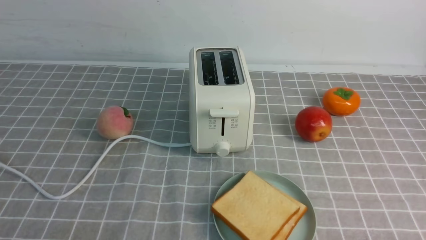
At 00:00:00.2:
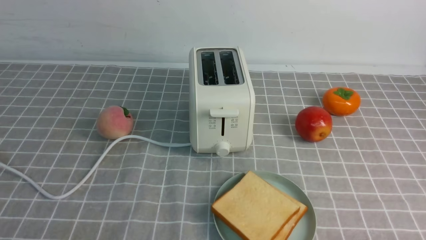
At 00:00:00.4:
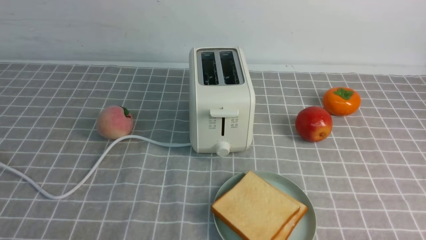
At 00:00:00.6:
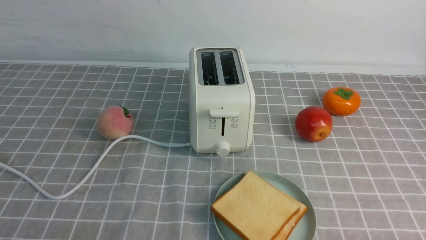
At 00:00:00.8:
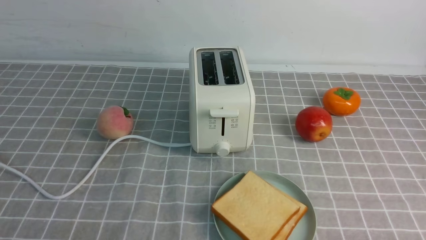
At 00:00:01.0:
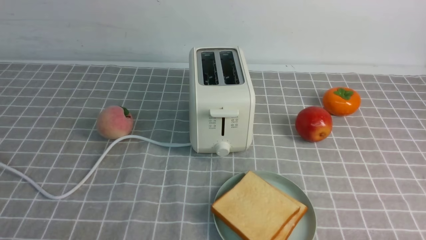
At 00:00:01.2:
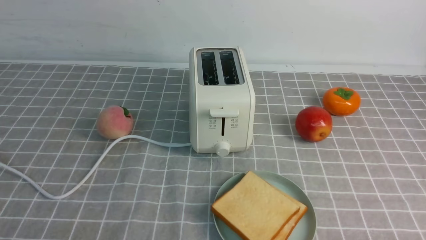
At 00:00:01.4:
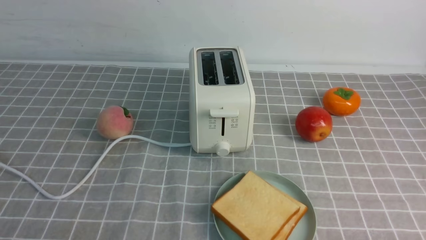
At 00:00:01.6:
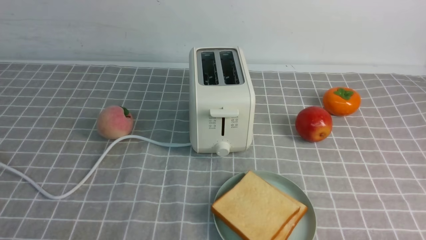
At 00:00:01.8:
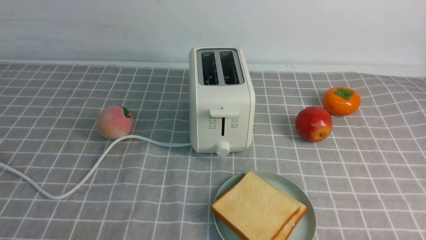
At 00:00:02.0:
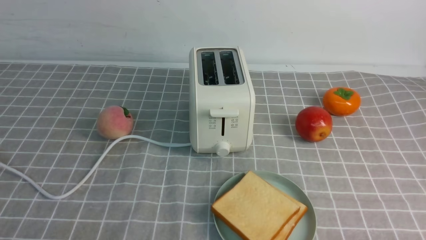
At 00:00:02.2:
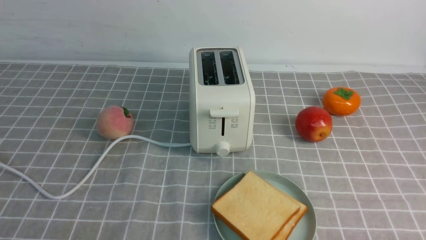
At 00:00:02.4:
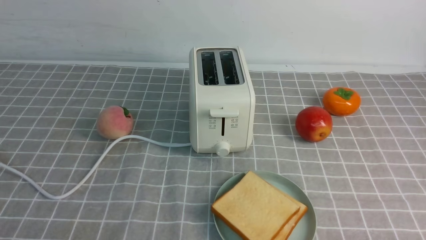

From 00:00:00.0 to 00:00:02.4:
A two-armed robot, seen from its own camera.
Task of the whole recording: take toasted bread from bread machine on grey coffee table place on plate.
From 00:00:00.0 to 00:00:02.4: The two grippers keep their place.

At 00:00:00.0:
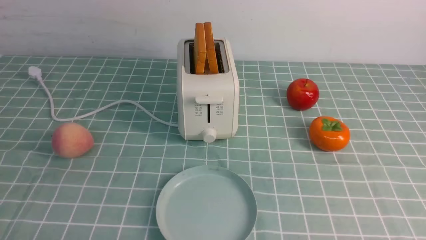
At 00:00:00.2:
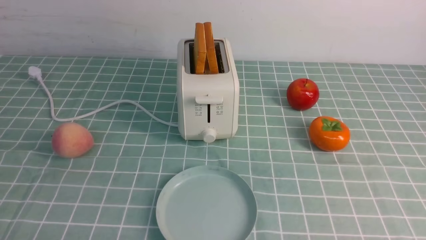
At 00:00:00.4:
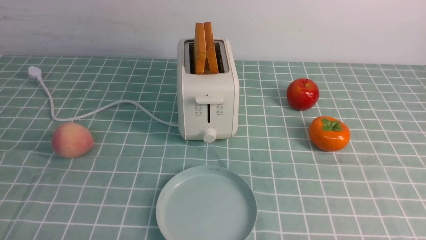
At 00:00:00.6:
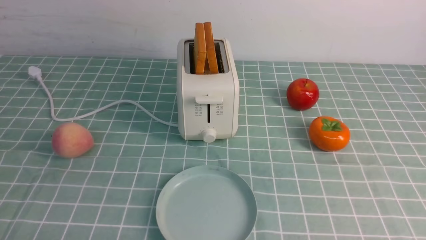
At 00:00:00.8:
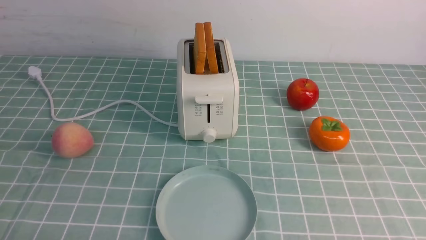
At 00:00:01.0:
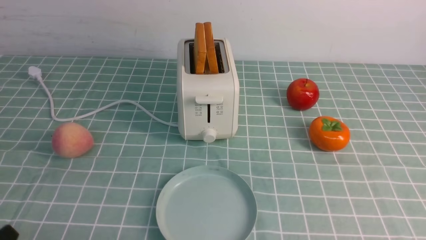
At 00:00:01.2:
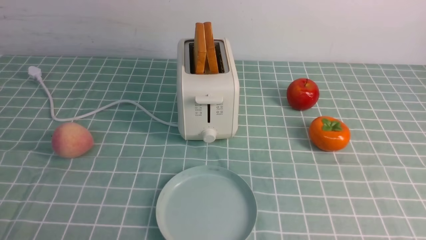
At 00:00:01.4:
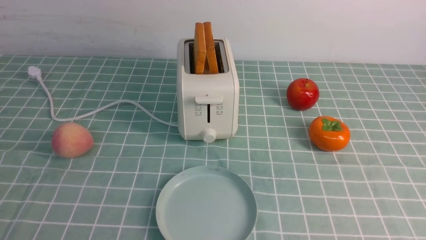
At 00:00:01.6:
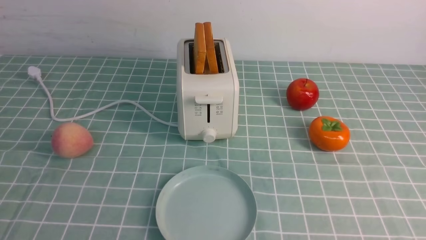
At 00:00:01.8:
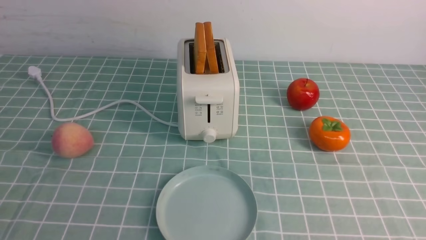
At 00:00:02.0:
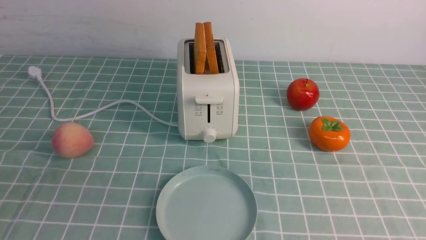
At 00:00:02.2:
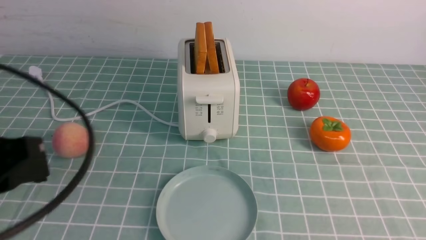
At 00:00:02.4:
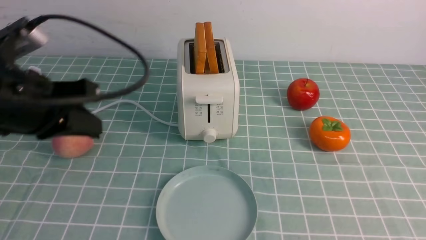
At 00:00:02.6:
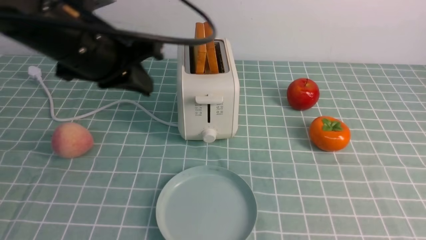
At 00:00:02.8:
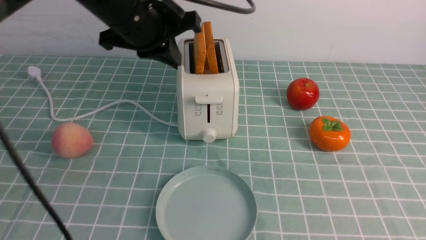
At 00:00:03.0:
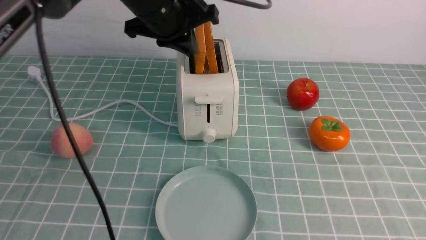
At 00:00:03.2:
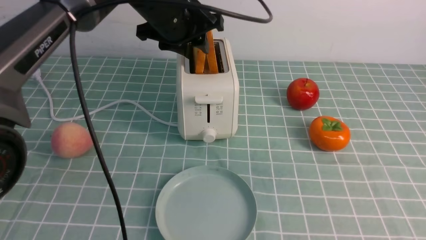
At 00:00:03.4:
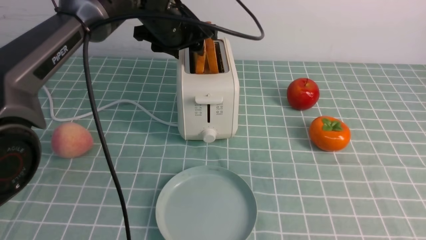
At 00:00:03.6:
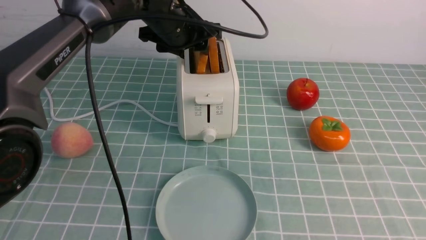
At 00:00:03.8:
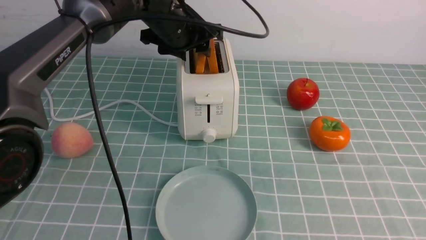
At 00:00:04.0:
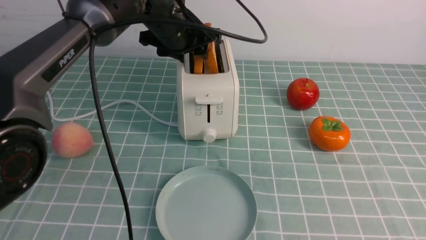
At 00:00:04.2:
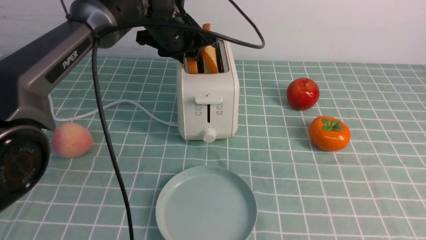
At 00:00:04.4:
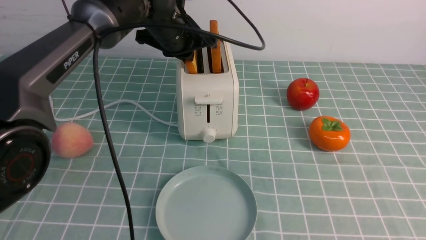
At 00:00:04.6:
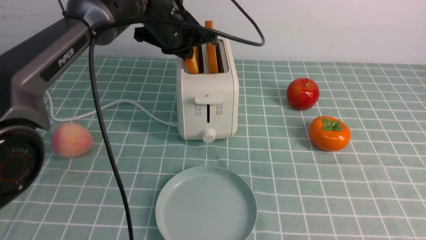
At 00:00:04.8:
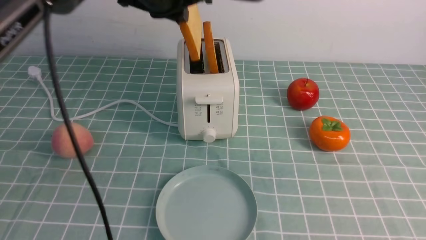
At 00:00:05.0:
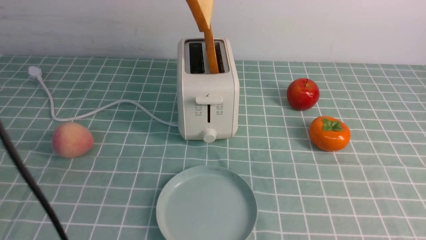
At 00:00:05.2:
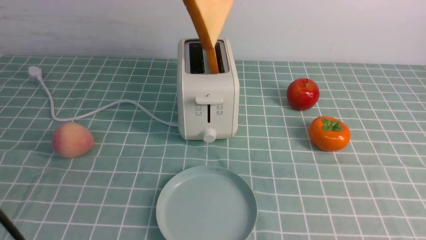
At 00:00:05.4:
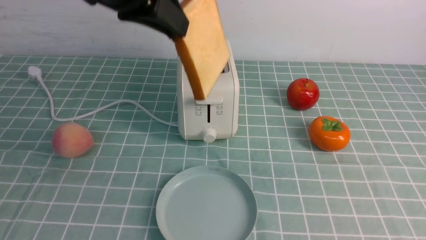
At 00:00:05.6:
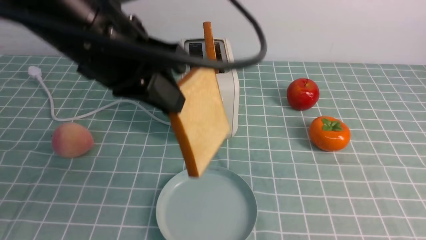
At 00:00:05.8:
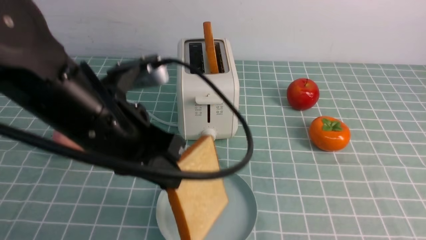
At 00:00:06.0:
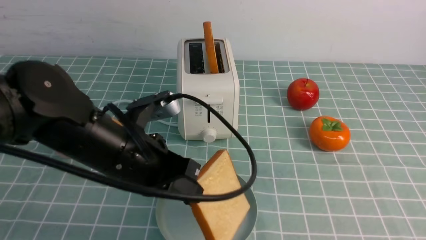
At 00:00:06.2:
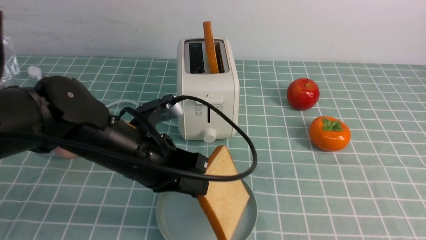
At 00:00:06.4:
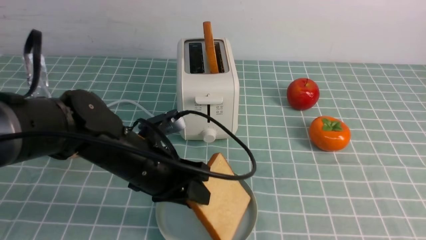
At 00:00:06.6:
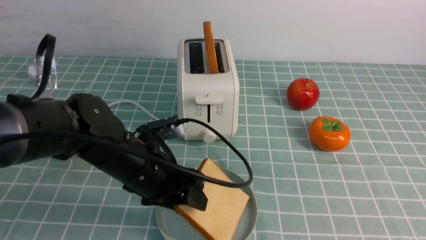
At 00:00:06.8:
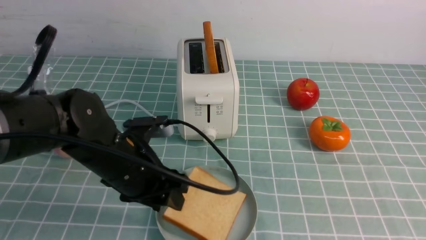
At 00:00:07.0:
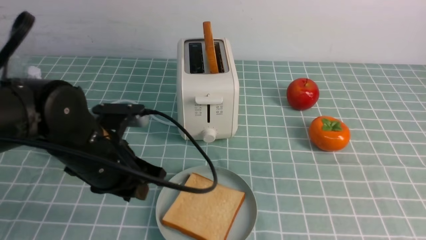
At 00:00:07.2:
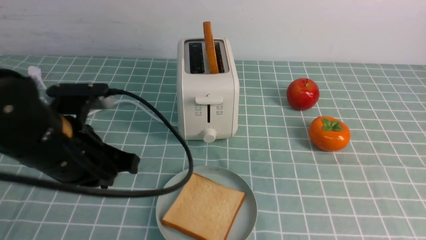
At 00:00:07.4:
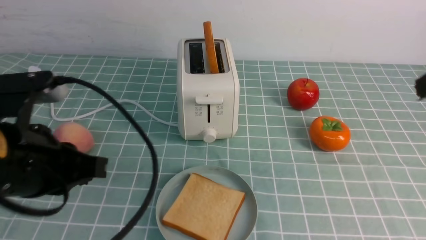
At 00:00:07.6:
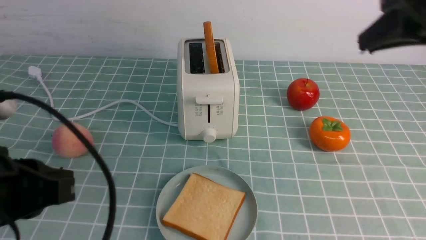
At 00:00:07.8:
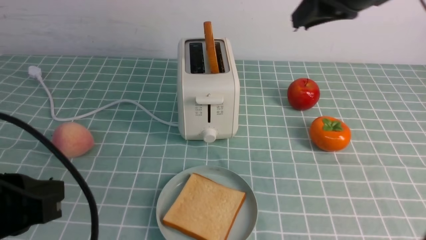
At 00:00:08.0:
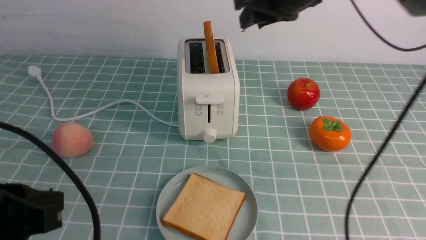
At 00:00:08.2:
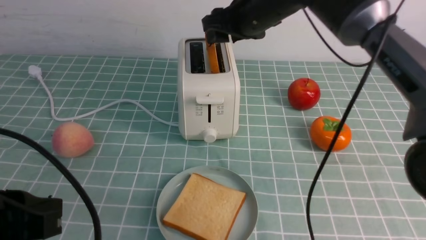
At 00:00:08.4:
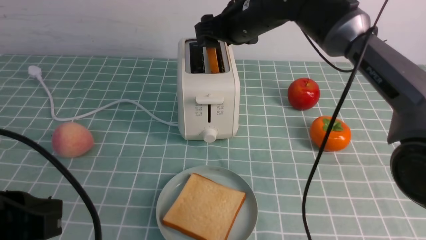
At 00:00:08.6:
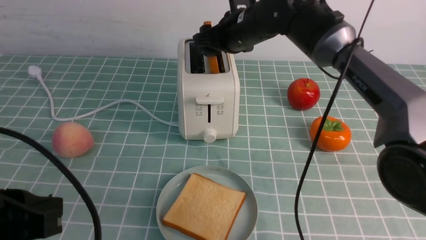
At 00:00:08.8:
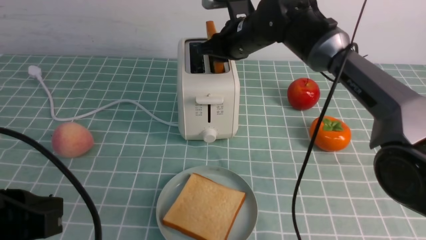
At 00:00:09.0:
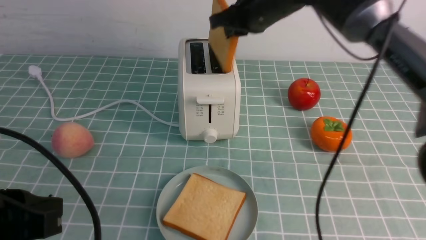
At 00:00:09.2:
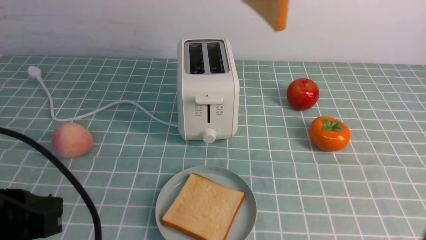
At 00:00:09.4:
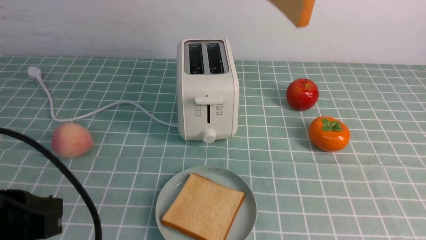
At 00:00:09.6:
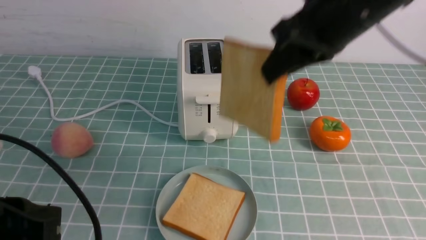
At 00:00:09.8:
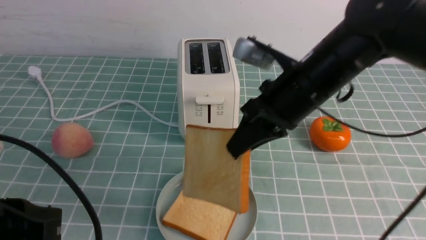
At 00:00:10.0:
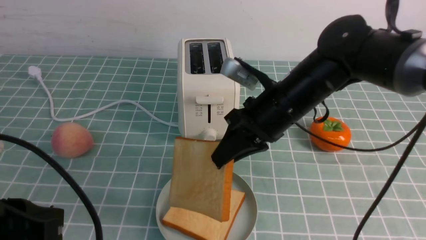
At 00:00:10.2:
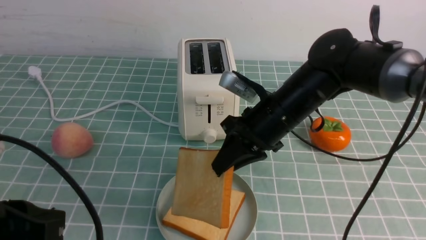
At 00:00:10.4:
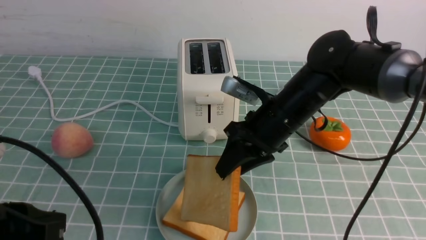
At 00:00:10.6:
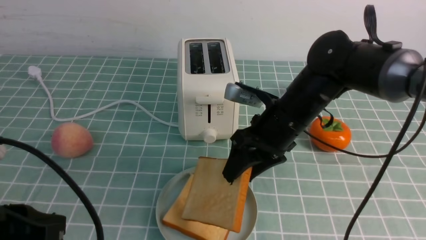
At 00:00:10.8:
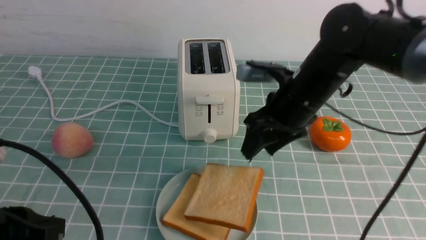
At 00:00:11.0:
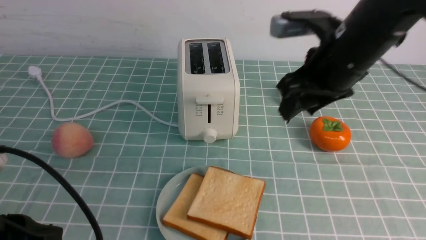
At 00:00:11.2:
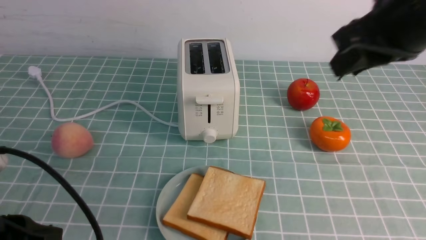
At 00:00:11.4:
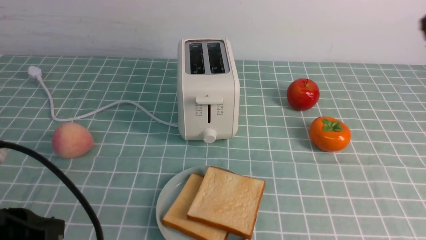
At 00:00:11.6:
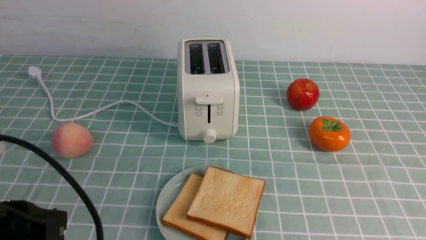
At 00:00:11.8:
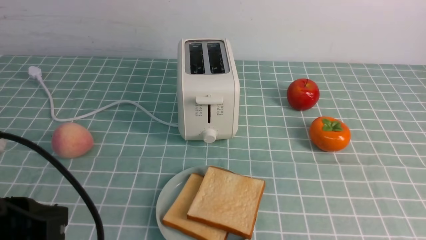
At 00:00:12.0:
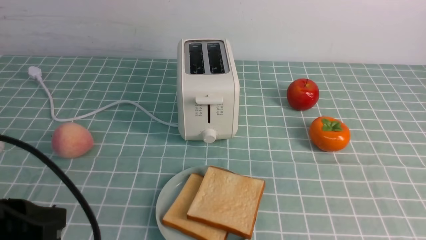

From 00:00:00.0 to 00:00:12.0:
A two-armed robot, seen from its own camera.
Task of the whole recording: take toasted bread from bread machine on blue coffee table place on plate.
Step, from 00:00:00.0 to 00:00:04.8: use the left arm to take out a slice of bread.
Step, from 00:00:05.0 to 00:00:07.0: use the left arm to put a slice of bread into the empty plate.
Step, from 00:00:07.2 to 00:00:09.0: use the right arm to take out a slice of bread.
Step, from 00:00:09.2 to 00:00:10.8: use the right arm to put a slice of bread into the plate.
From 00:00:01.6 to 00:00:03.0: The left gripper moves forward and to the right, approximately 40 cm. The right gripper heads upward, covering roughly 15 cm, and closes up.
From 00:00:03.0 to 00:00:04.4: The left gripper moves forward, some 5 cm, and opens, then closes once more.
From 00:00:04.4 to 00:00:06.0: The left gripper is displaced backward by roughly 20 cm.
From 00:00:06.0 to 00:00:07.6: The left gripper goes roughly 15 cm backward and to the left, and opens, then closes once more, while the right gripper goes approximately 25 cm forward and upward.
From 00:00:07.6 to 00:00:09.0: The right gripper moves forward and to the left, roughly 20 cm, and opens and closes again.
From 00:00:09.0 to 00:00:10.4: The right gripper goes some 20 cm downward and backward, and opens.
From 00:00:10.4 to 00:00:12.0: The right gripper is displaced backward and to the right by approximately 35 cm, and closes its fingers.

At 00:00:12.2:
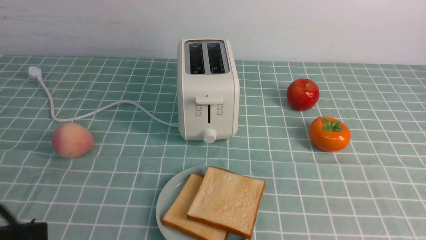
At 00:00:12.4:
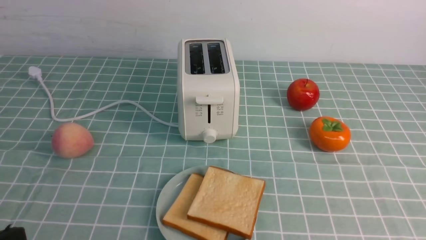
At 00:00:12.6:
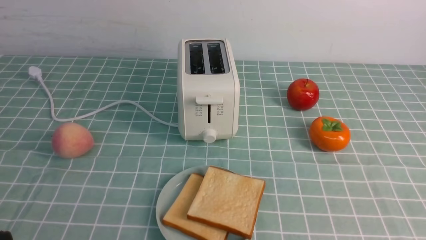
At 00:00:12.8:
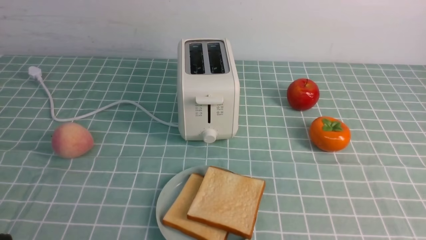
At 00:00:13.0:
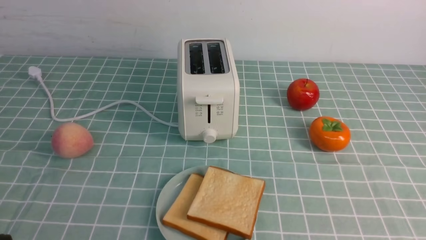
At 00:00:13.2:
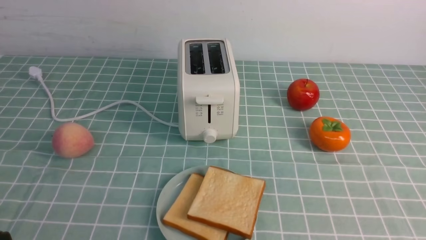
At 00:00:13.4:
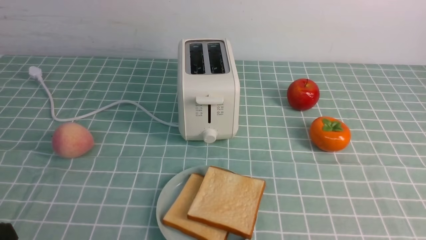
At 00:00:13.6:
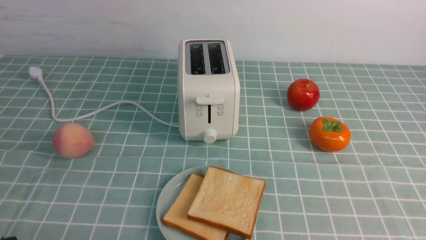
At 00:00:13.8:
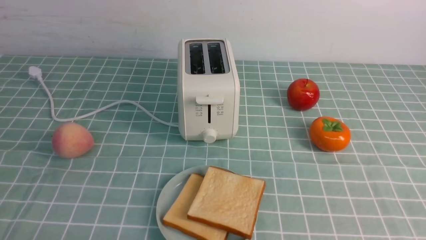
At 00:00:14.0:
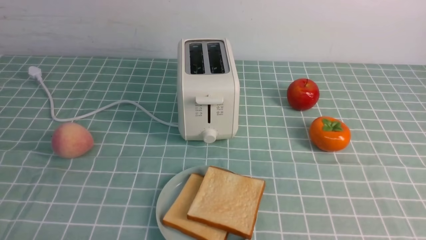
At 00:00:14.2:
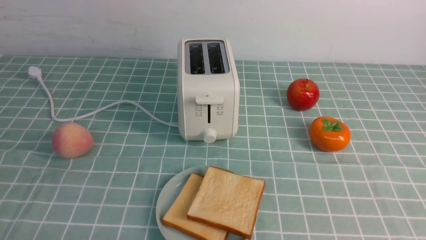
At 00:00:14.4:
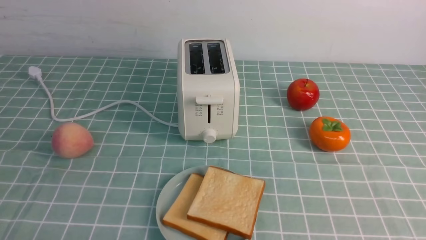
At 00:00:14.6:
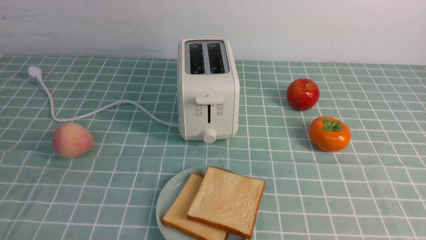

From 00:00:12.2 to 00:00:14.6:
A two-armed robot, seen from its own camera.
Task of the whole recording: take toasted bread from bread machine on blue coffee table place on plate.
From 00:00:12.2 to 00:00:13.4: The left gripper shifts about 5 cm downward.
